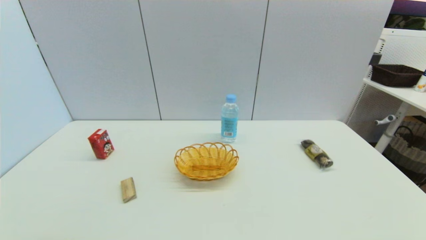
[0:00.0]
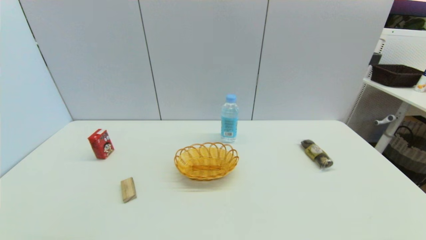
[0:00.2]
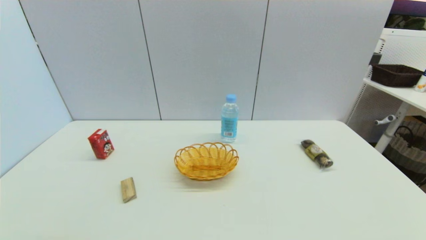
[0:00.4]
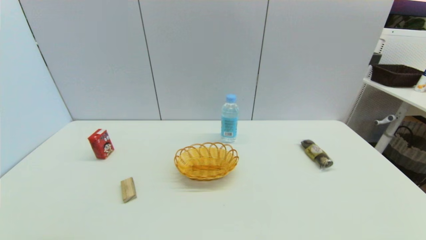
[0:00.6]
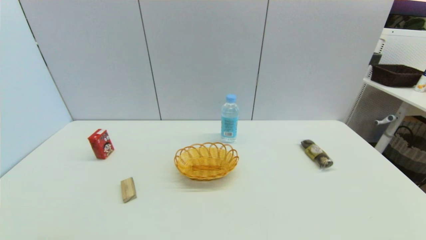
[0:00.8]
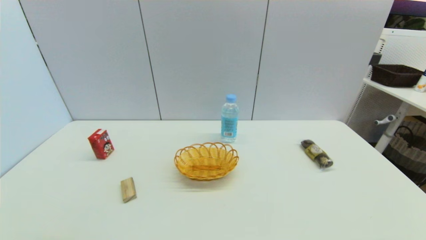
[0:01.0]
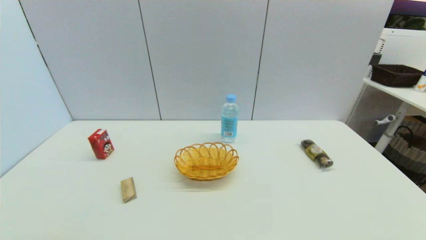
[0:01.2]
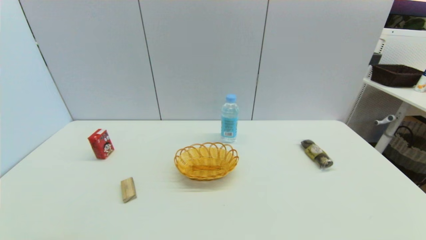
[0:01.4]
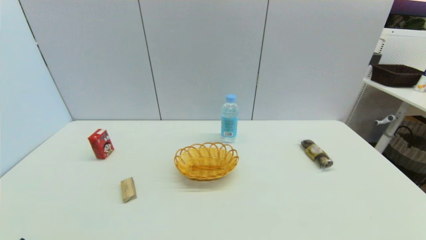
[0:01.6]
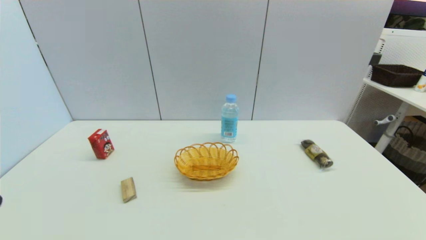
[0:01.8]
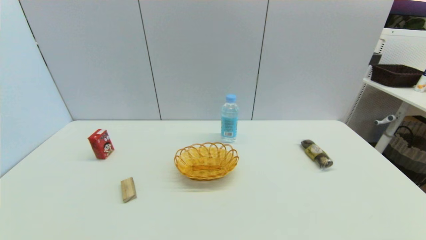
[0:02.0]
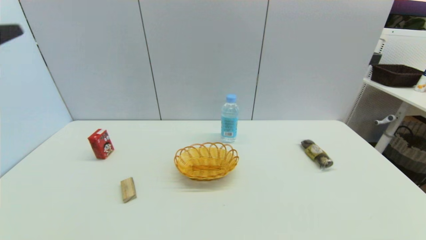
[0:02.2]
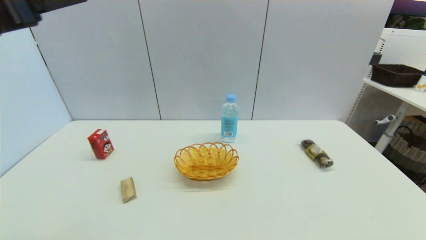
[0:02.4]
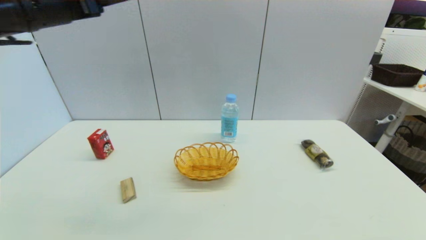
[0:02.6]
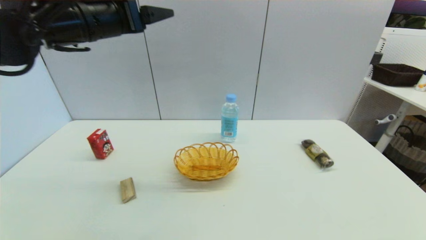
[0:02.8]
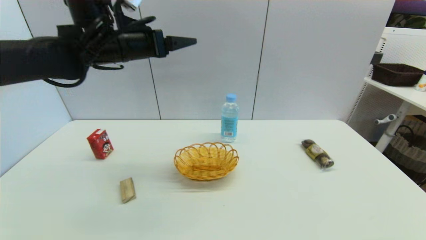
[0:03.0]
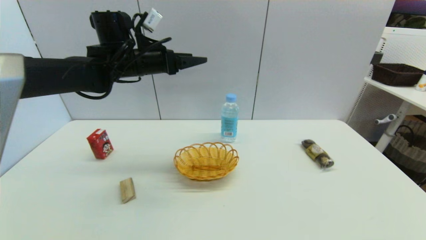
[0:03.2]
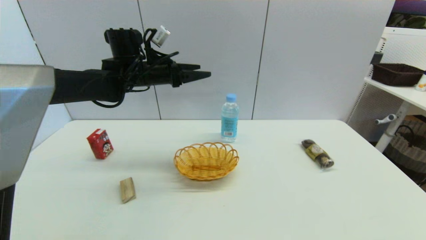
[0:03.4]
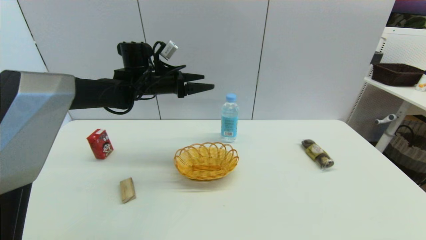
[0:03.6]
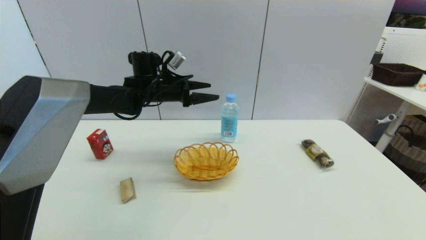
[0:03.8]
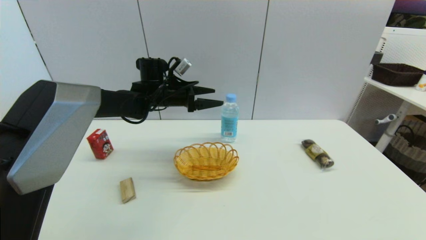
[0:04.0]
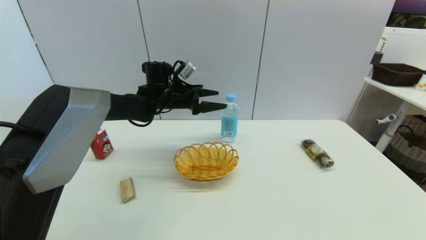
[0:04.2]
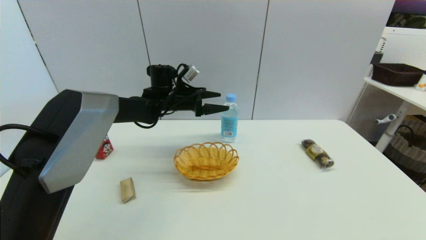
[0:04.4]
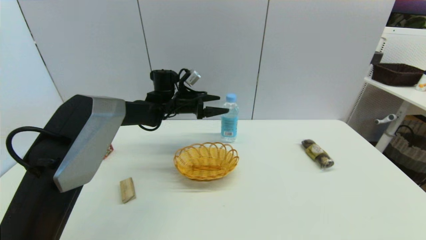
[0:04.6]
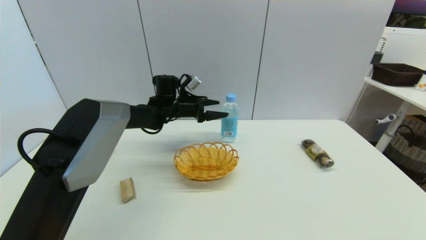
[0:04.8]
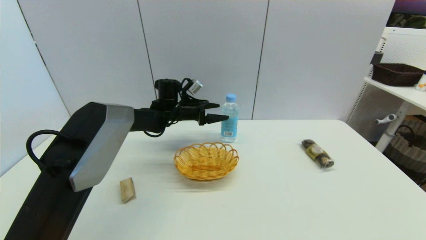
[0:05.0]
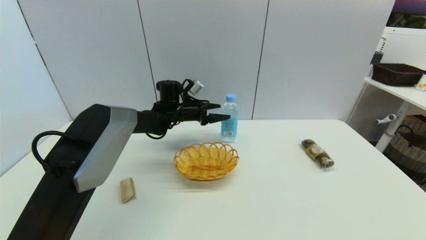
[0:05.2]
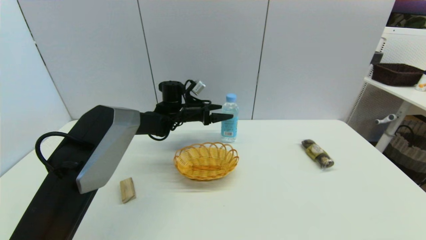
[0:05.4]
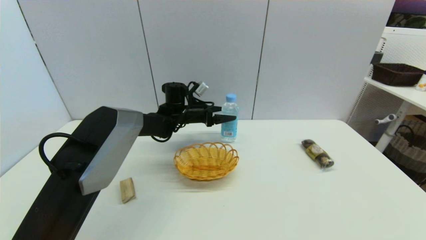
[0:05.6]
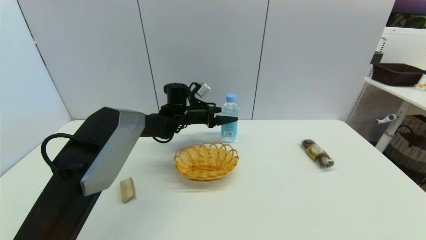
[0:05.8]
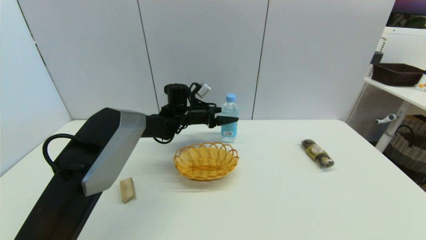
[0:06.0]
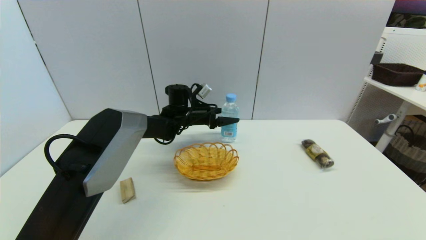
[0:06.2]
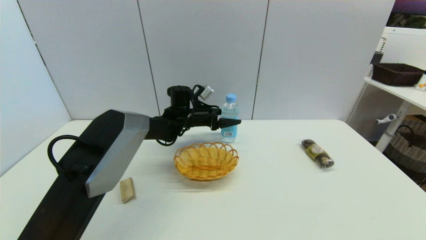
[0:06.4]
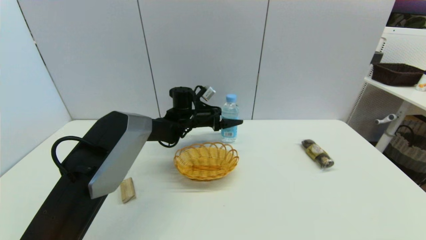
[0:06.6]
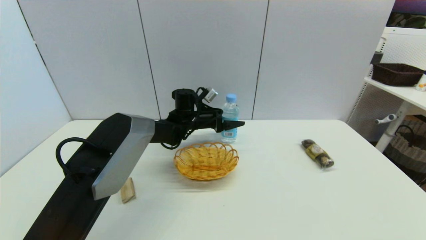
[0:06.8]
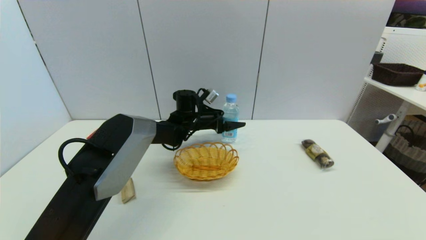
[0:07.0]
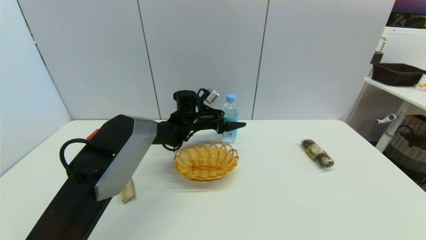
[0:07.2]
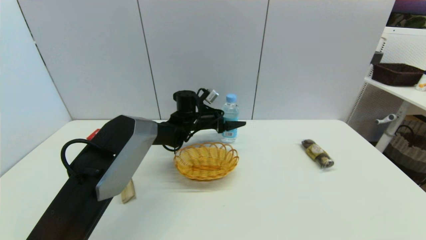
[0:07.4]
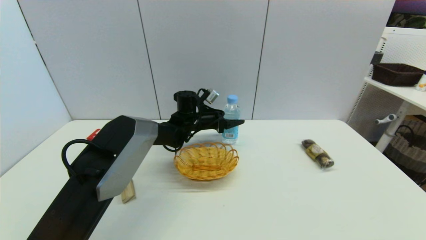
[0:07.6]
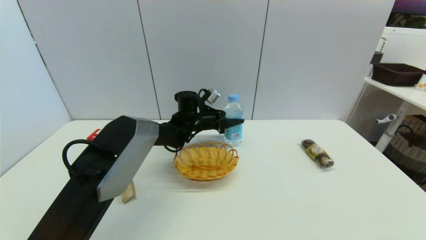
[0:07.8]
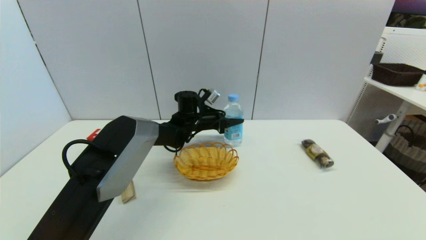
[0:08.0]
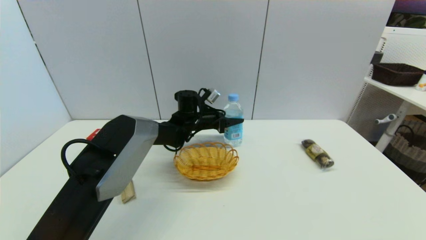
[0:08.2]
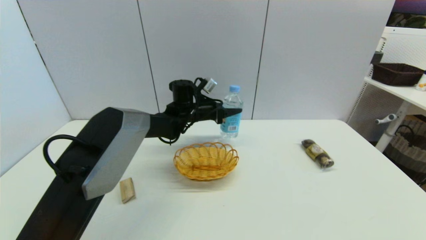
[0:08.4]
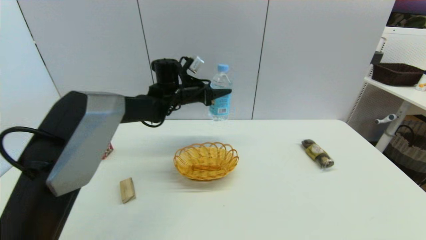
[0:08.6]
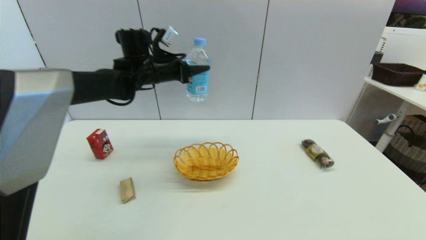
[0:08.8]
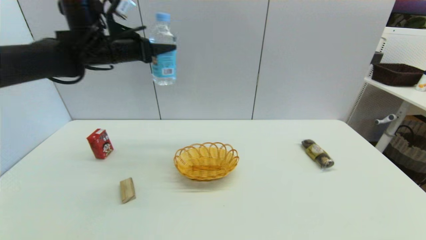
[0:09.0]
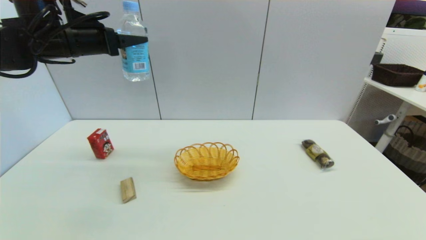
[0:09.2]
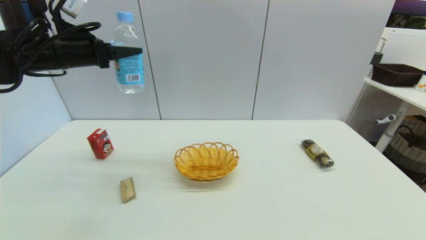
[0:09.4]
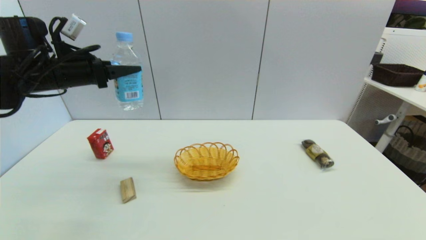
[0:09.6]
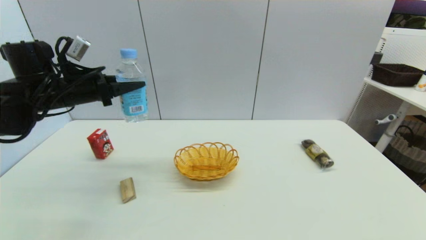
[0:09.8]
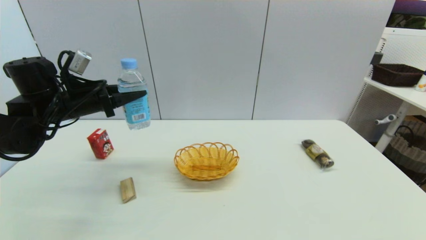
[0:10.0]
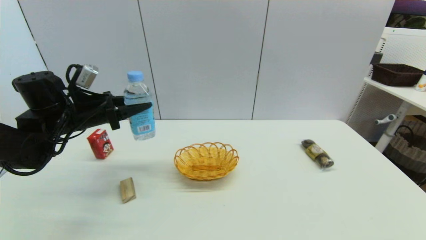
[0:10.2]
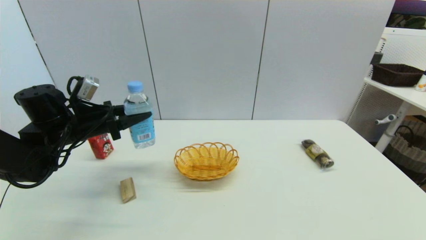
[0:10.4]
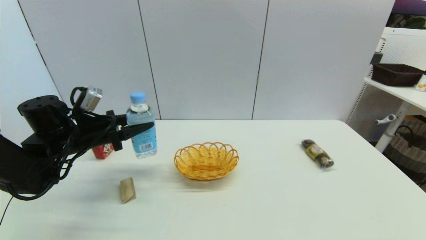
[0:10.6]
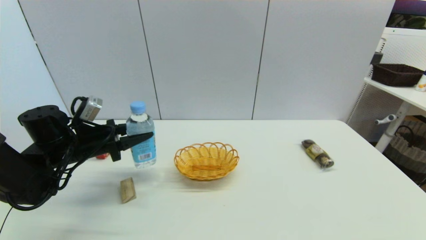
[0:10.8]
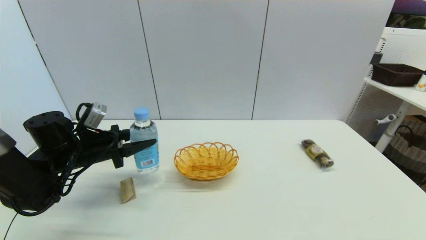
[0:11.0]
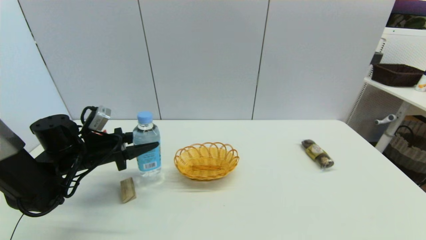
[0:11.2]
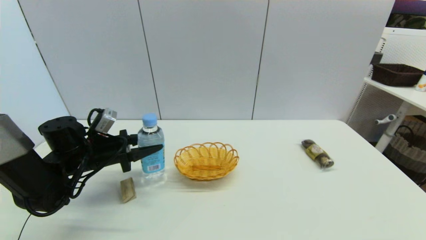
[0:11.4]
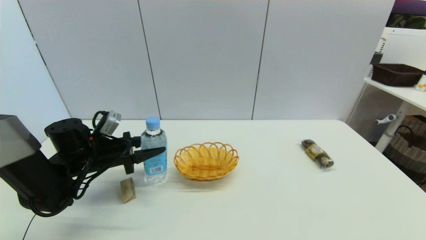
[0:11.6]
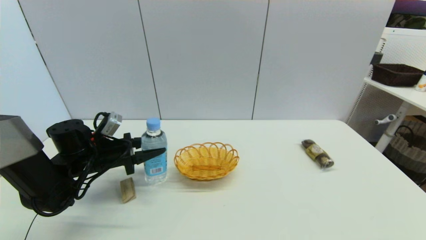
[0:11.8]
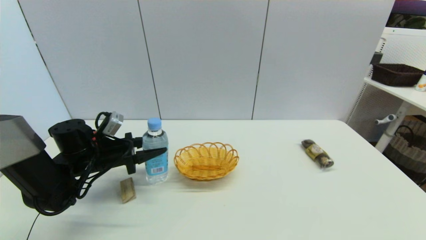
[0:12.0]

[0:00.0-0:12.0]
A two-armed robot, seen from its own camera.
Step, 0:01.4 to 0:08.0: Grasp the soda water with left gripper.
0:01.6 to 0:03.0: The left gripper travels forward and upward by some 40 cm.
0:03.0 to 0:04.4: The left gripper travels downward, forward and to the right by approximately 20 cm.
0:04.4 to 0:06.0: The left gripper heads downward, covering some 5 cm.
0:06.0 to 0:07.6: The left gripper closes up.
0:07.6 to 0:09.0: The left gripper goes some 30 cm upward and to the left, and closes.
0:09.0 to 0:10.4: The left gripper moves downward and backward, some 20 cm.
0:10.4 to 0:12.0: The left gripper goes roughly 10 cm downward.

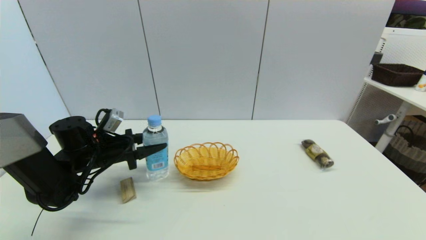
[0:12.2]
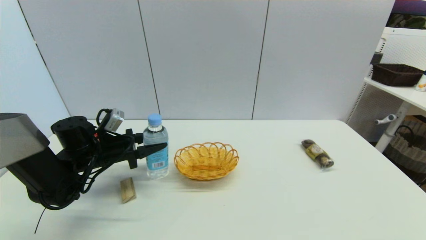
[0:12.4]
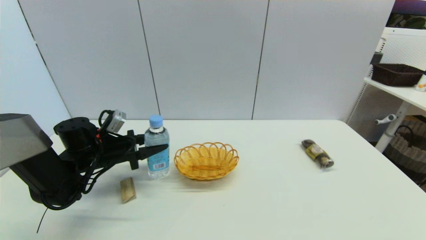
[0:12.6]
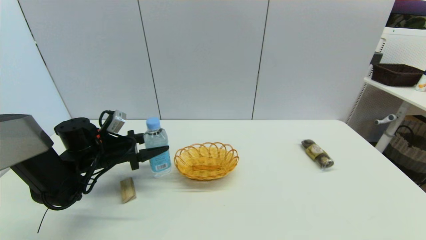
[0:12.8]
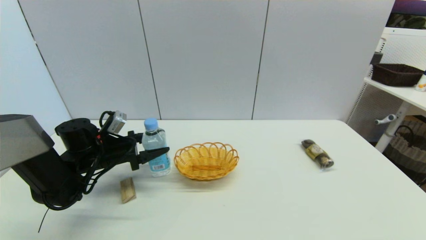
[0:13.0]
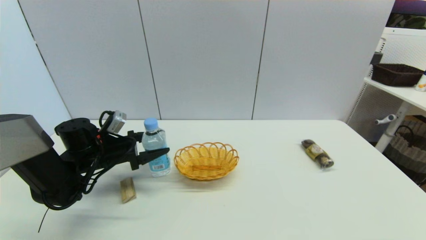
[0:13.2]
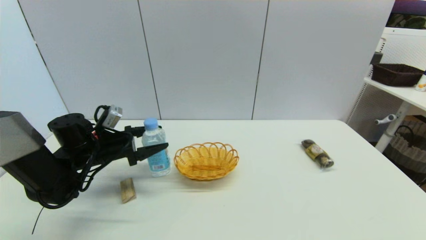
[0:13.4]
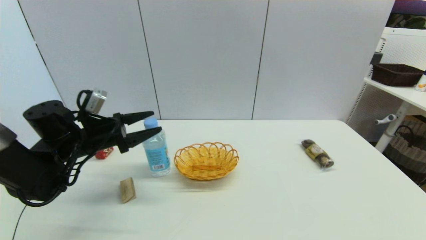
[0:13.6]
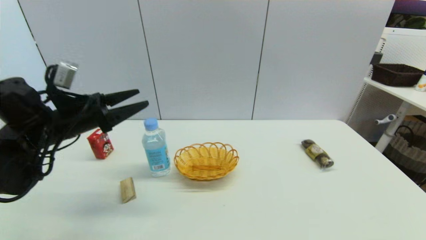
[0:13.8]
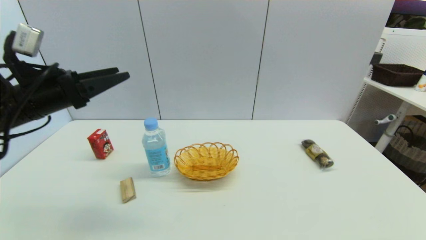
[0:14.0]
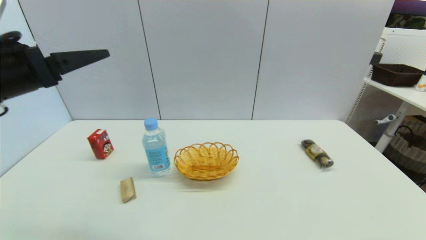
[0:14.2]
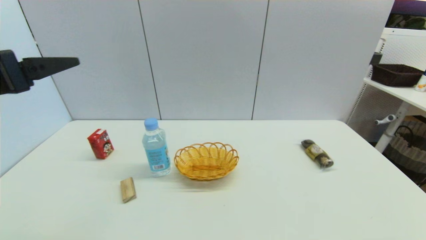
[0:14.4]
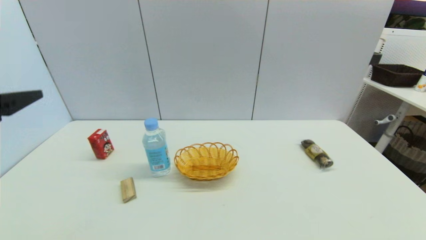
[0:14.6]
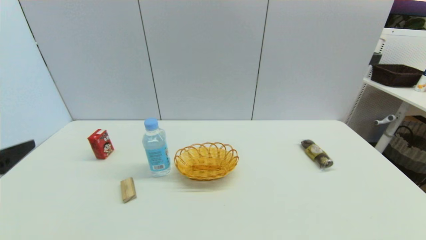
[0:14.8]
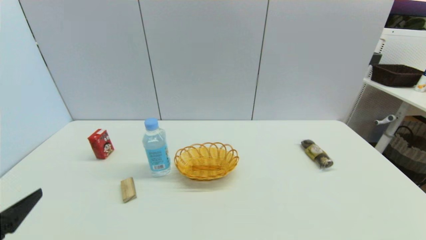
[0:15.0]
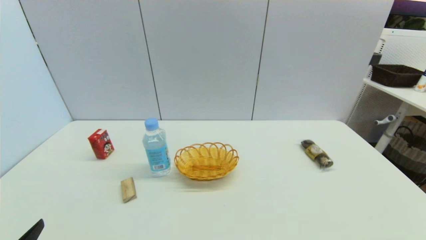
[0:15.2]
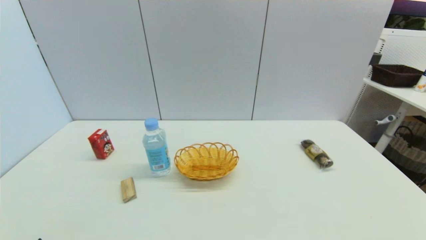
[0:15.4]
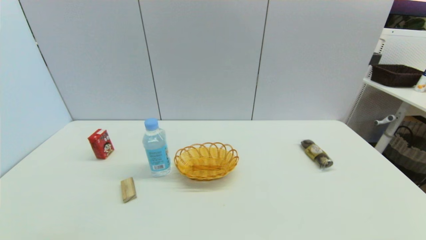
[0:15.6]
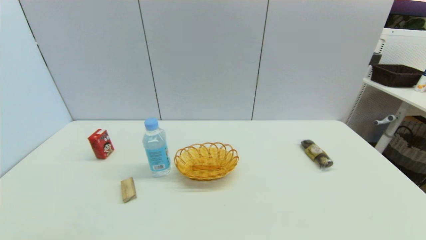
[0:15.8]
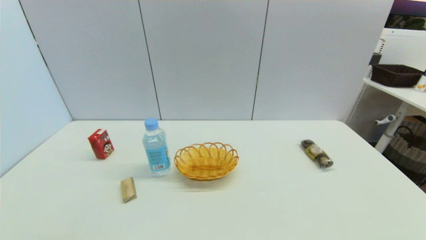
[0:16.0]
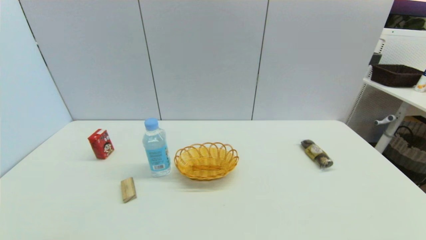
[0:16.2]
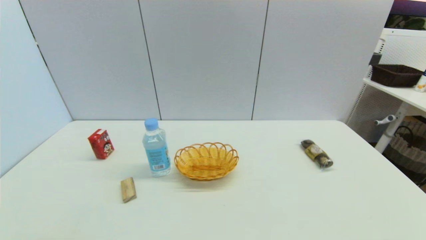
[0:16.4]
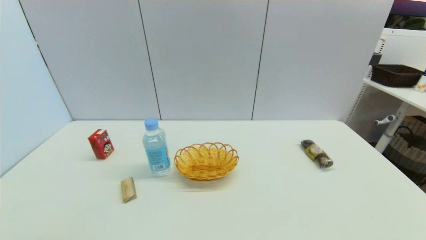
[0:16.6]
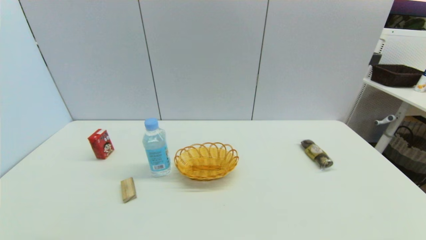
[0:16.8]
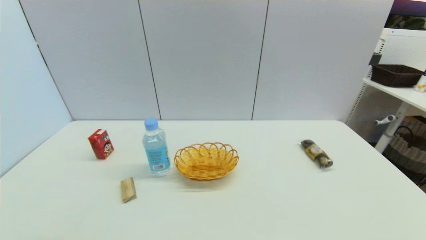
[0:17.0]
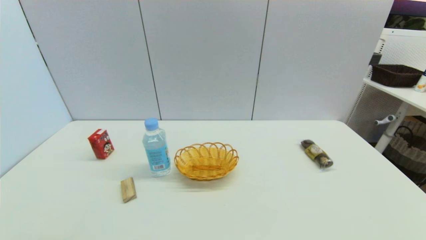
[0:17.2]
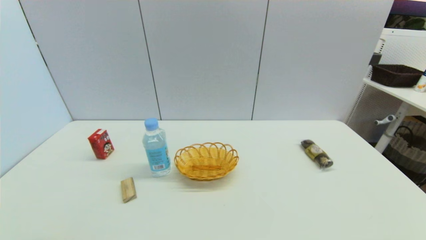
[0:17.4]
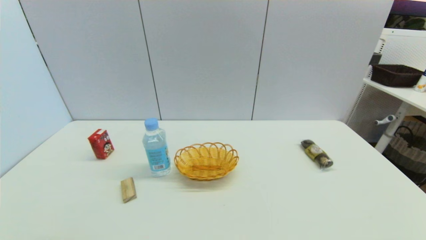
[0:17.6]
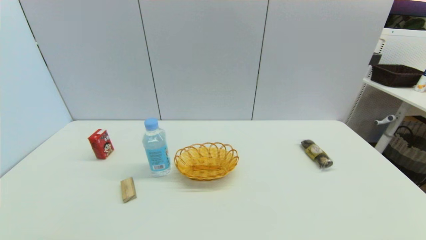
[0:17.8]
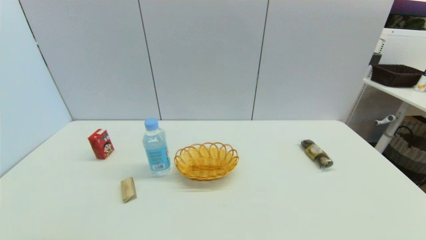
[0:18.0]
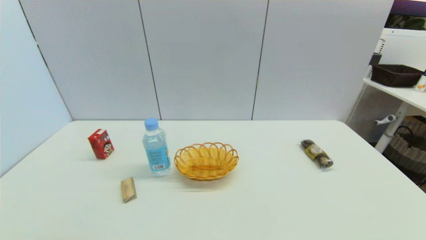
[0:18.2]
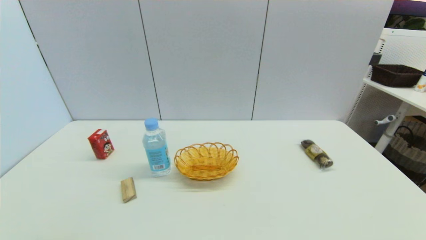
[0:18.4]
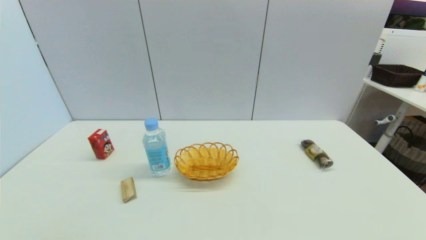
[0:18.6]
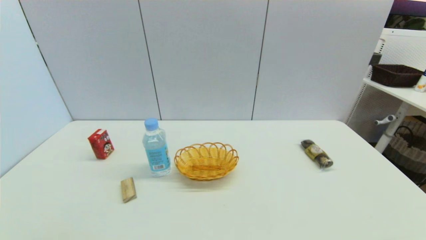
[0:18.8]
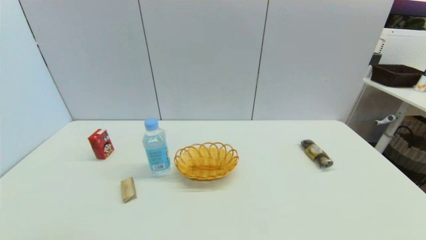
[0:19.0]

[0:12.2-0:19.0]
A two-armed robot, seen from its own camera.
0:12.2 to 0:13.6: The left gripper shifts some 5 cm upward, and opens.
0:13.6 to 0:15.0: The left gripper is displaced backward by some 25 cm.
0:15.0 to 0:16.2: The left gripper shifts roughly 15 cm downward and backward.
0:16.2 to 0:17.6: Both grippers stay about where they are.
